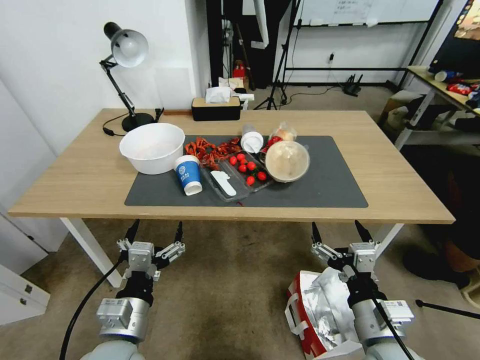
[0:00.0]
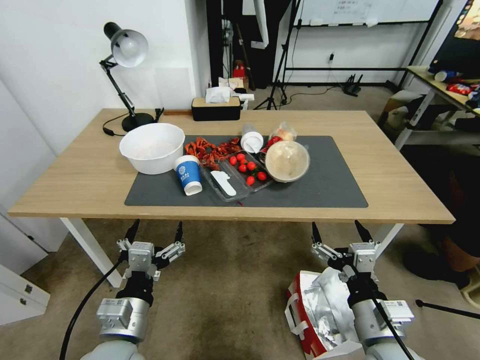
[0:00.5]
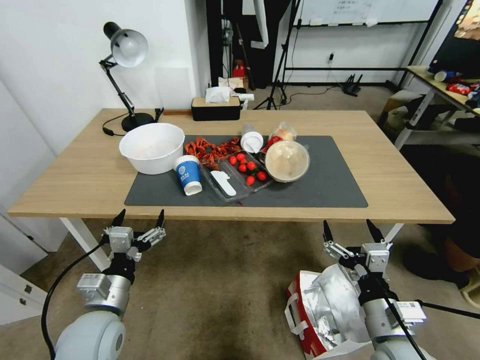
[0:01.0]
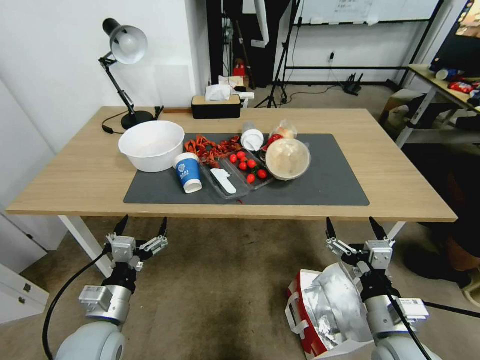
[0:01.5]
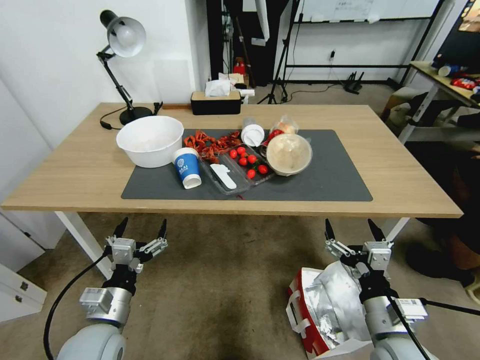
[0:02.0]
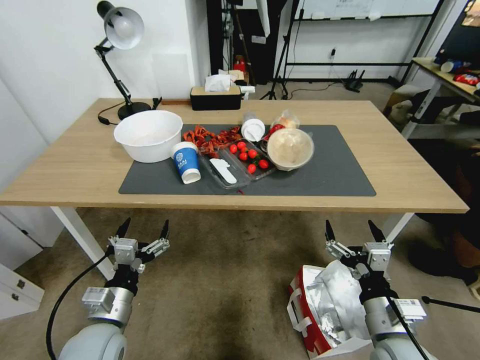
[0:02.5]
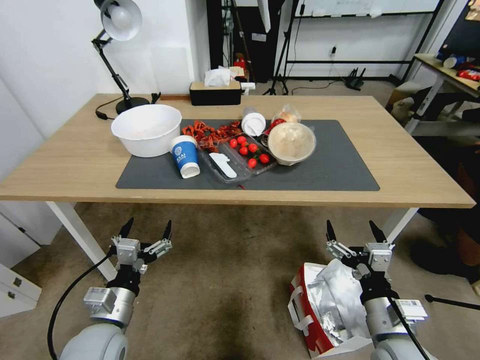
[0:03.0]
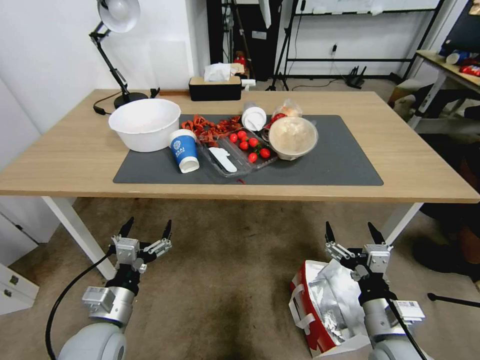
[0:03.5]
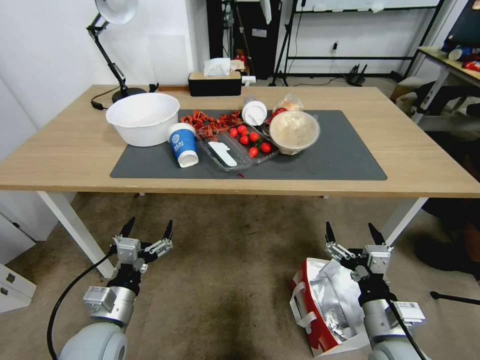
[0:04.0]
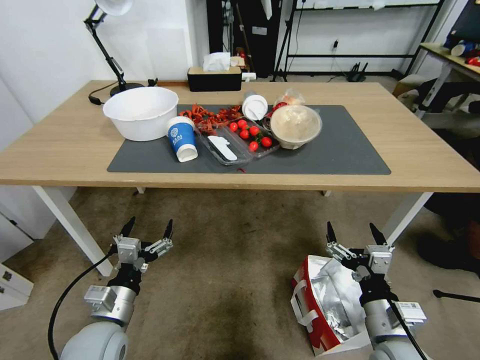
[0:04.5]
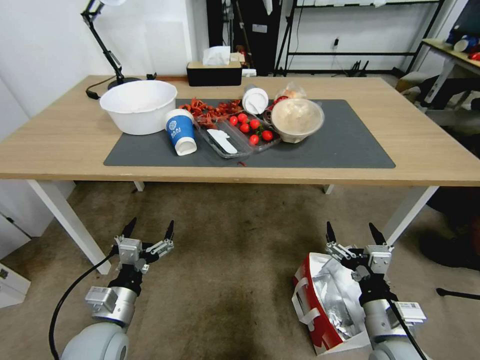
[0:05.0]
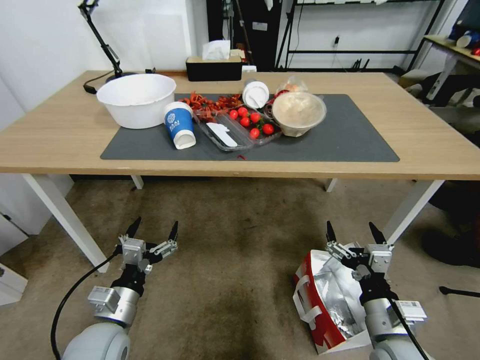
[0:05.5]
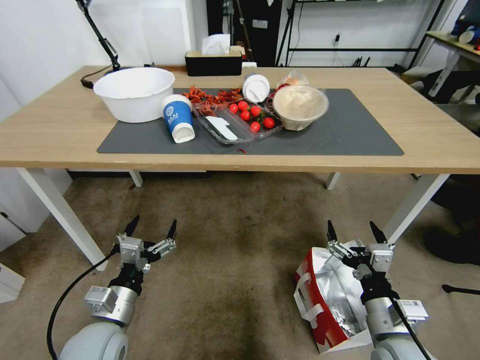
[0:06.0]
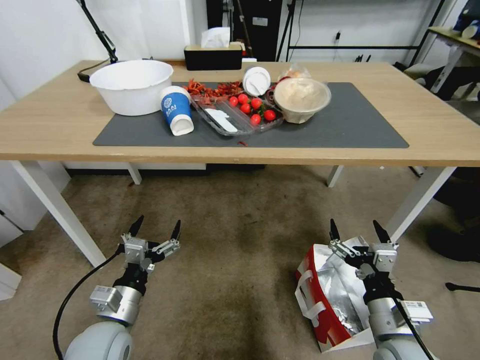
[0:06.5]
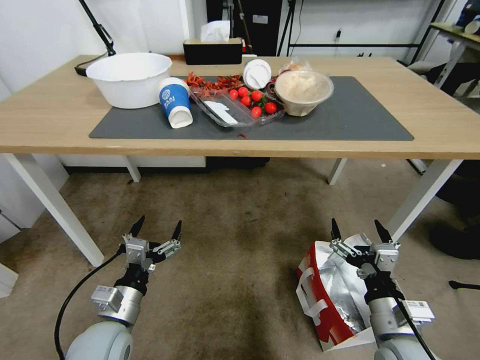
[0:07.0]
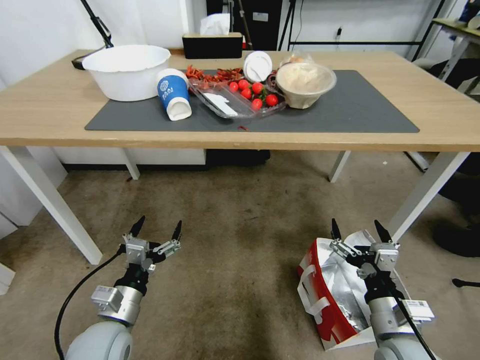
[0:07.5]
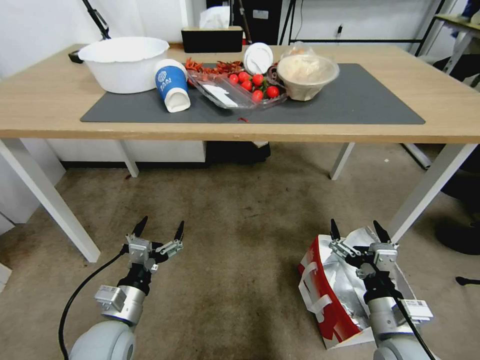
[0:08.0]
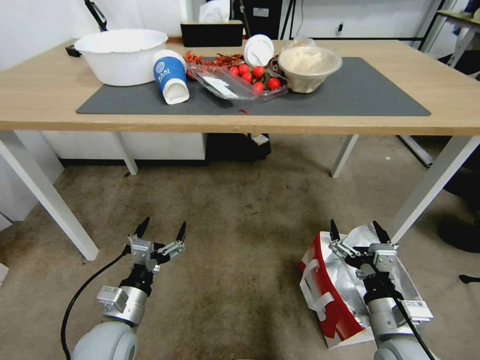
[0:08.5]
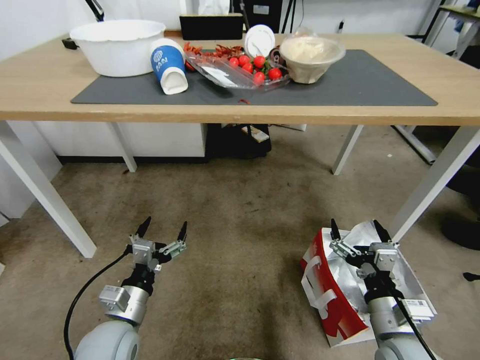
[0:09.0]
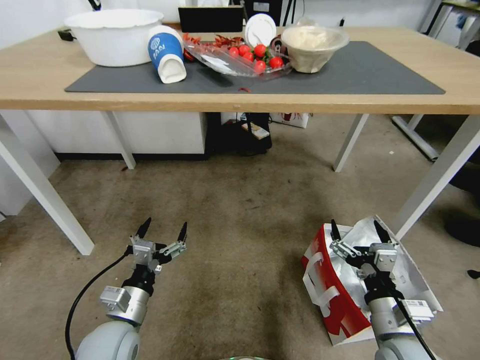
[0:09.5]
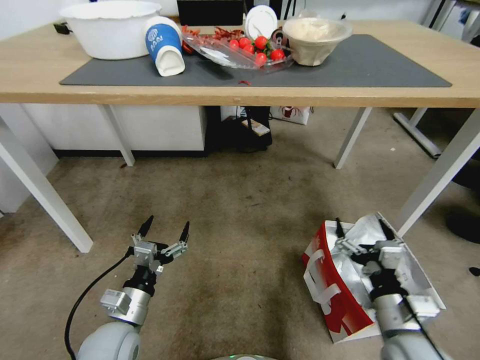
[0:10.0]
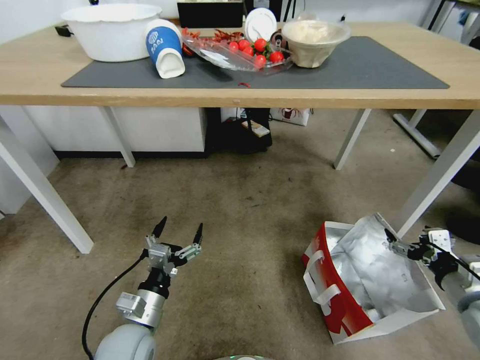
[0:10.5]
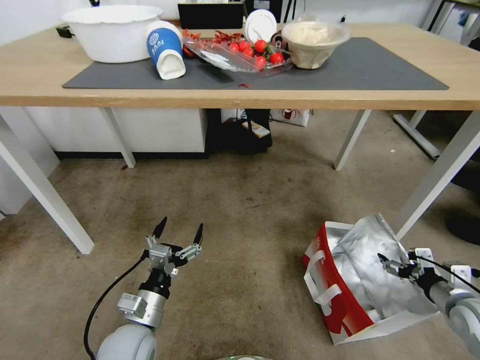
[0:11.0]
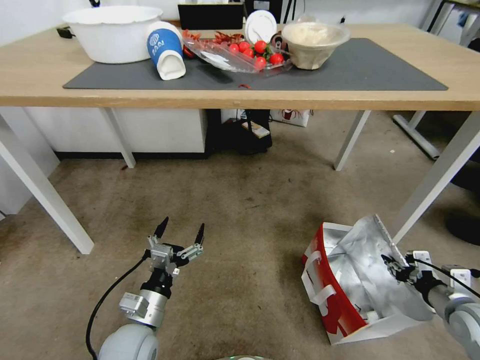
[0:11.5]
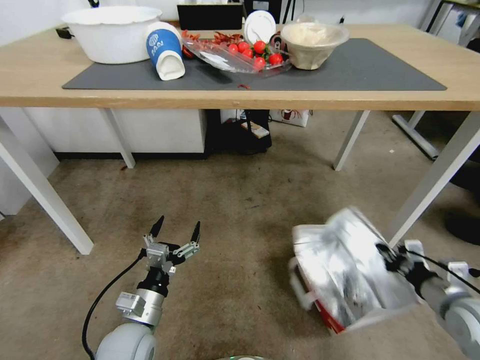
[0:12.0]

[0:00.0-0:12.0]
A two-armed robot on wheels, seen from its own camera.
Task of the whole recording: Pick up the food delivery bag from the floor and place it on the table.
0:10.0 to 0:12.0: The right gripper is displaced to the right by some 15 cm, and closes its fingers.

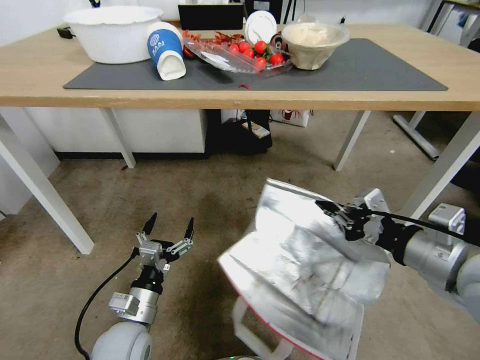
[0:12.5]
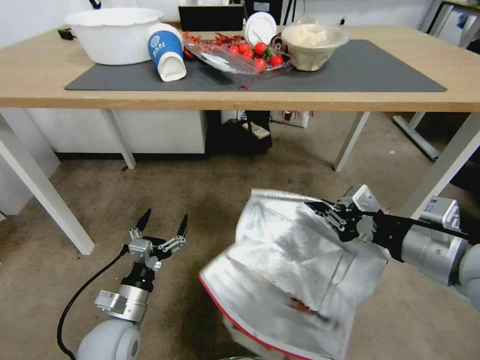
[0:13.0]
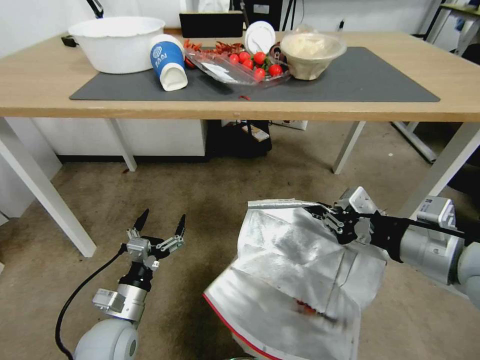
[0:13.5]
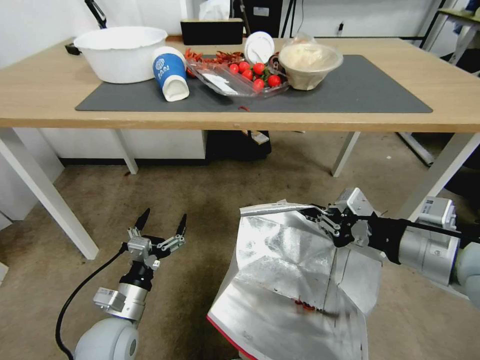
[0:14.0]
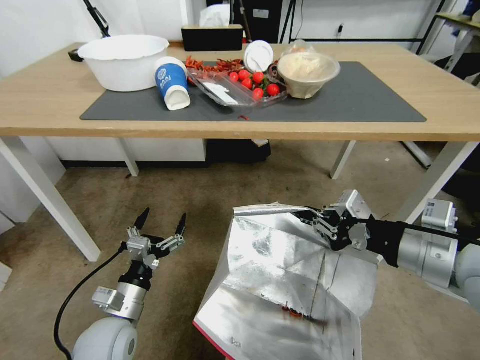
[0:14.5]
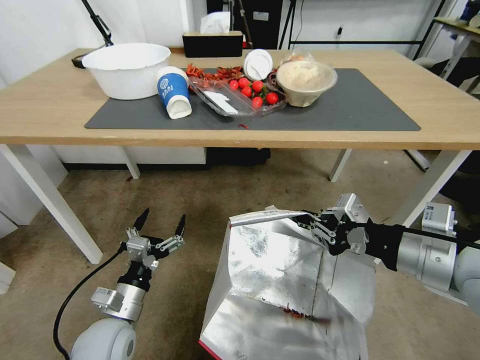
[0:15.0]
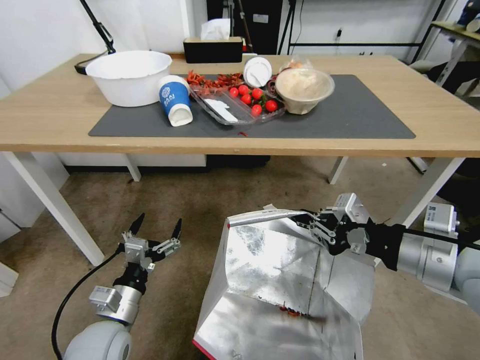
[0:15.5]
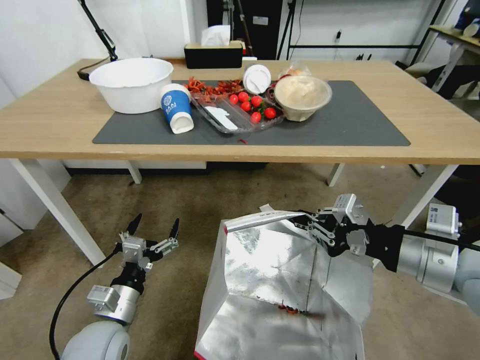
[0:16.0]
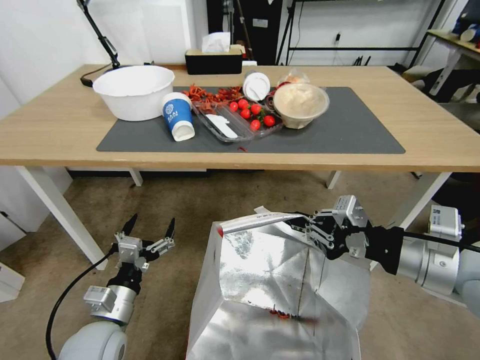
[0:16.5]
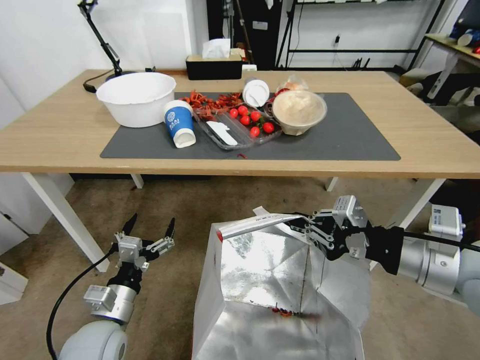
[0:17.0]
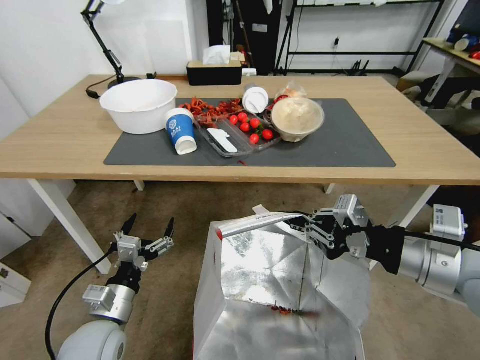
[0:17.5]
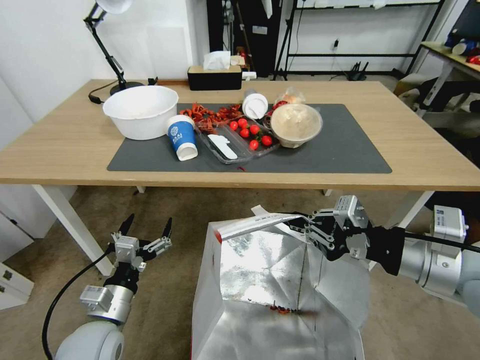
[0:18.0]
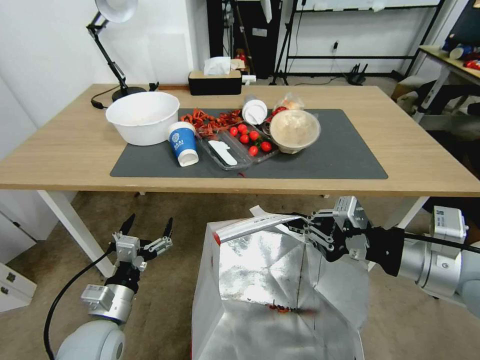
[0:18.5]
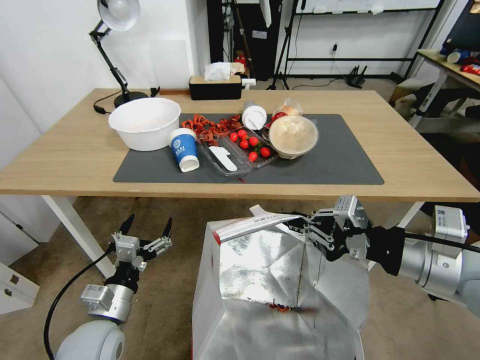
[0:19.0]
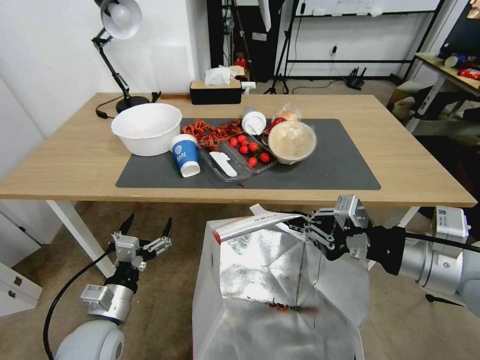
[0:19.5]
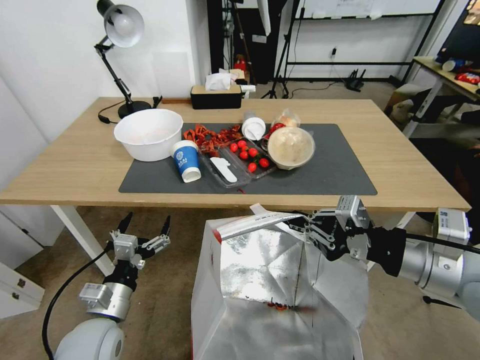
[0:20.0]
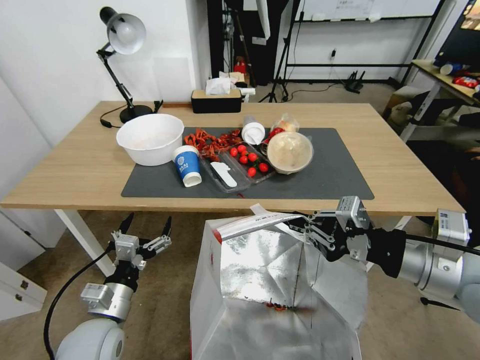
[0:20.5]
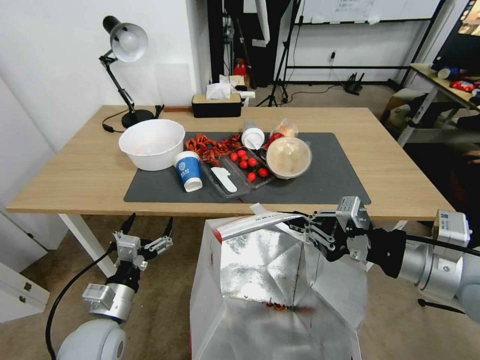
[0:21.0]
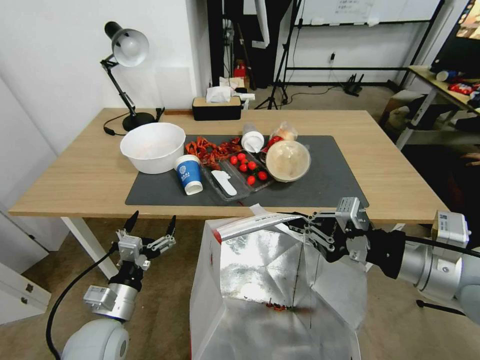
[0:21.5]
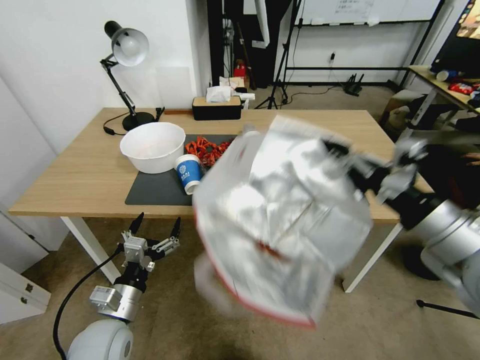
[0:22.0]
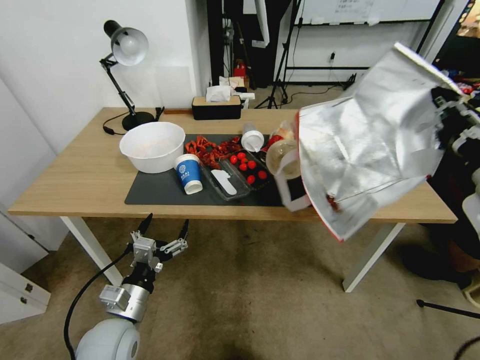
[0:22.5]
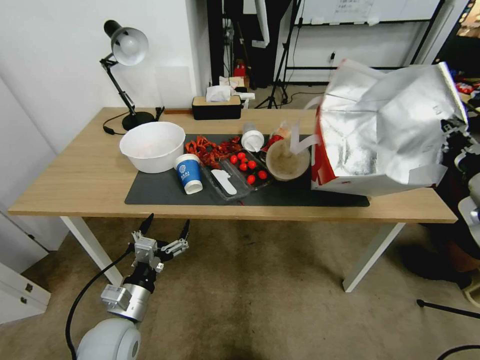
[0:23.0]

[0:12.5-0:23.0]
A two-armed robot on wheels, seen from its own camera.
Task of the whole recording: Pick up the food delivery bag from the floor and place it on the table.
0:21.0 to 0:23.0: The right gripper shifts about 10 cm to the right and forward.

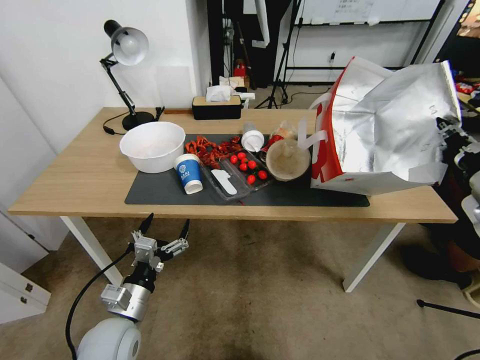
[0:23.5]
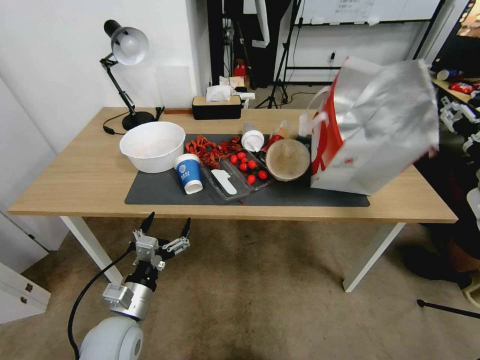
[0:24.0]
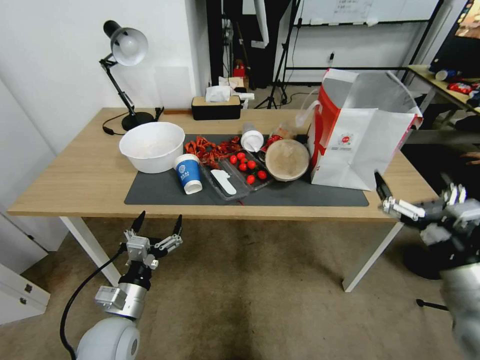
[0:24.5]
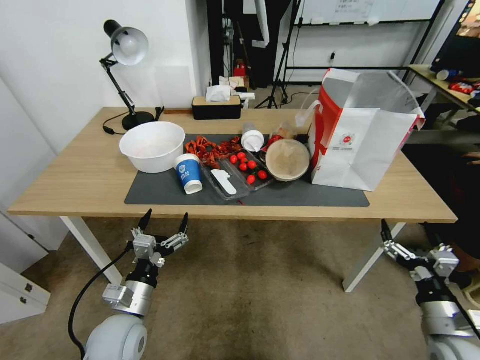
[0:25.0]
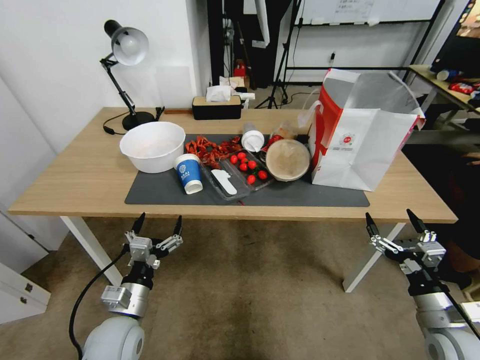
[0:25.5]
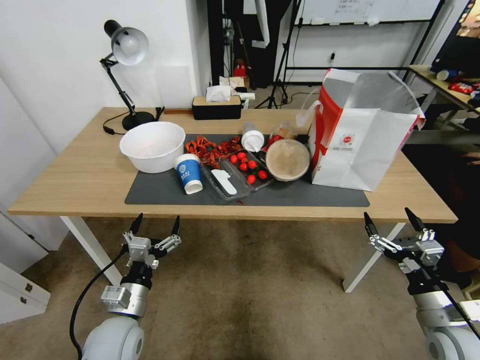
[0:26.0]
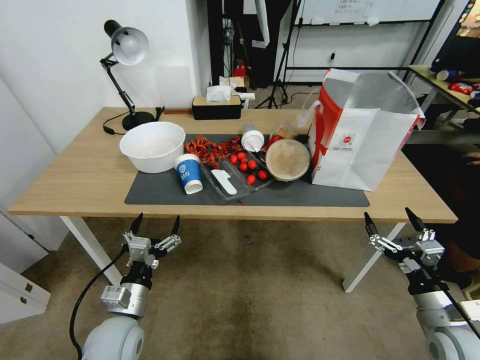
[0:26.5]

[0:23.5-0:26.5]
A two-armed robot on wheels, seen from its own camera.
Task of the whole recording: Pick up the food delivery bag from the floor and place it on the table.
0:23.5 to 0:25.0: The right gripper shifts roughly 30 cm downward and backward, and opens.
0:25.0 to 0:26.5: The grippers move only a little.
